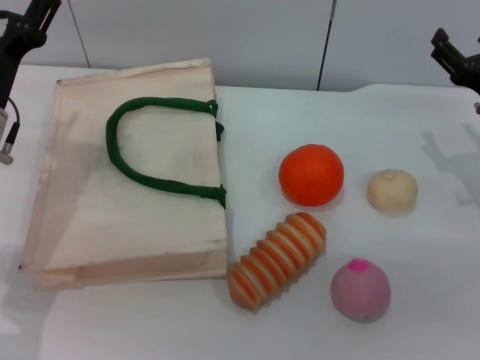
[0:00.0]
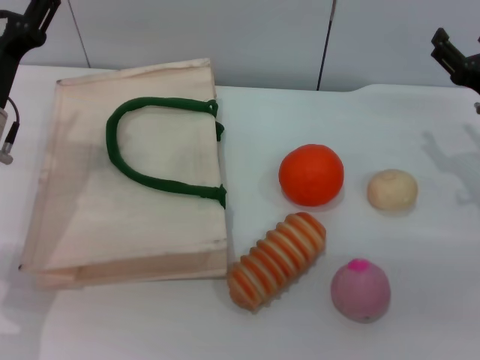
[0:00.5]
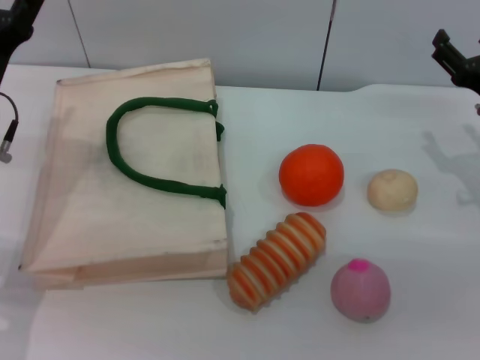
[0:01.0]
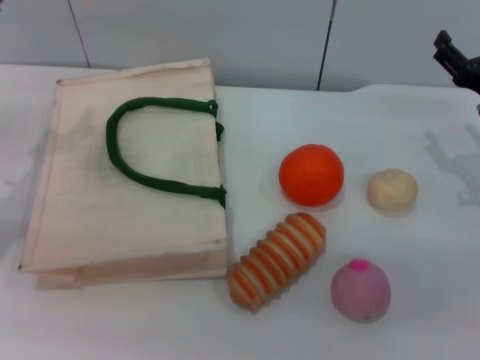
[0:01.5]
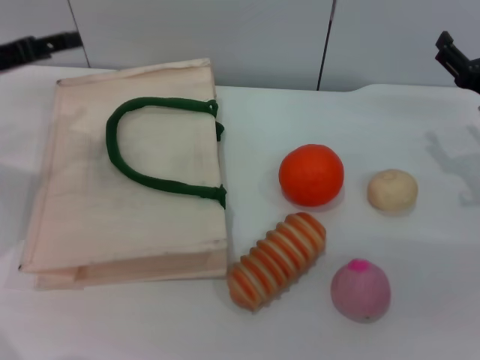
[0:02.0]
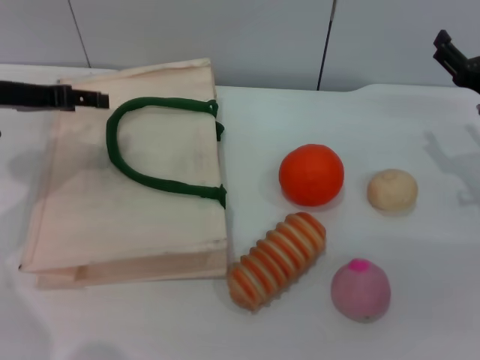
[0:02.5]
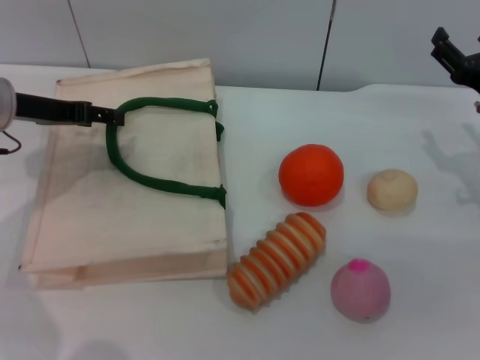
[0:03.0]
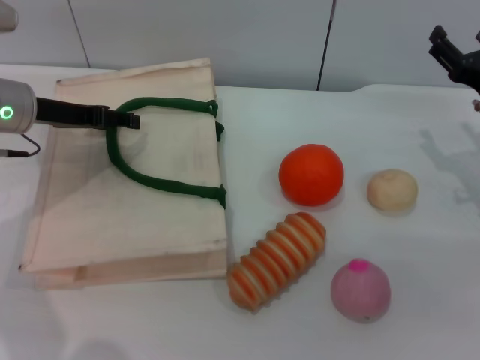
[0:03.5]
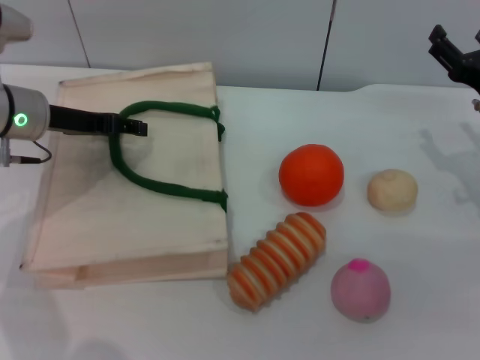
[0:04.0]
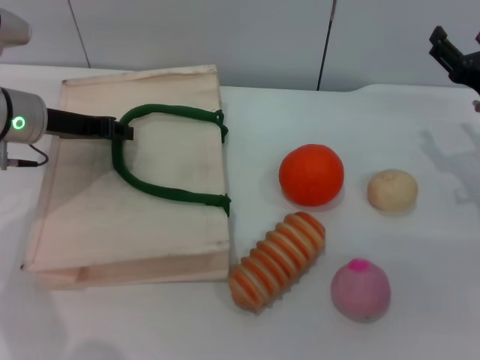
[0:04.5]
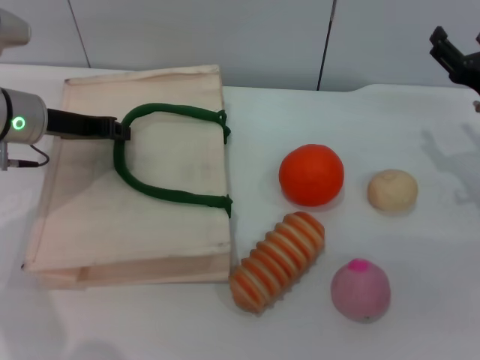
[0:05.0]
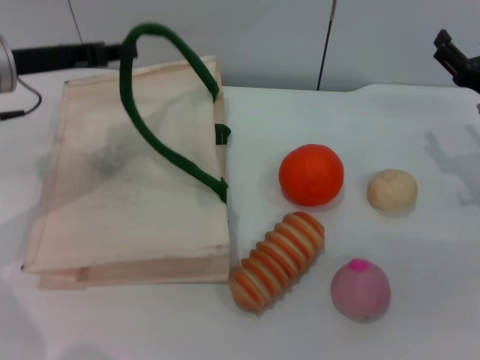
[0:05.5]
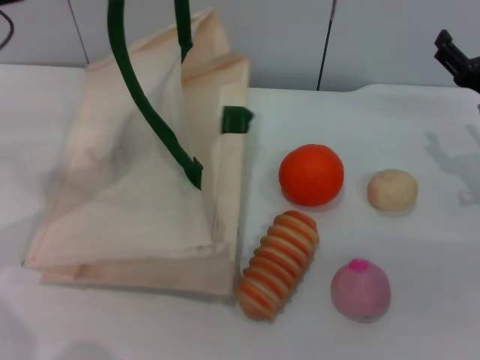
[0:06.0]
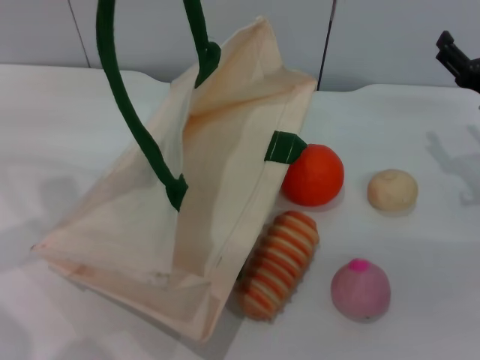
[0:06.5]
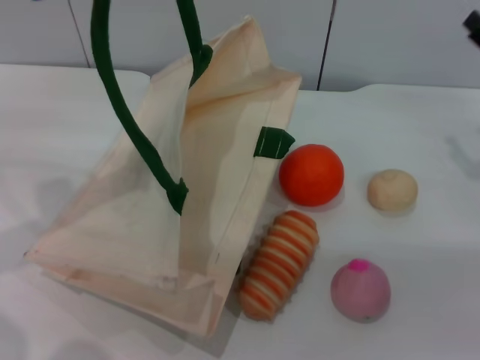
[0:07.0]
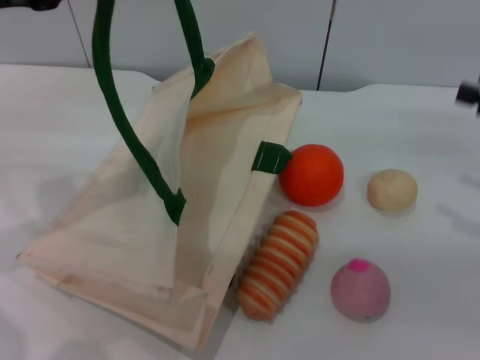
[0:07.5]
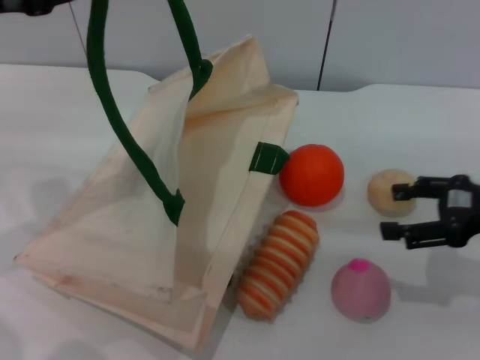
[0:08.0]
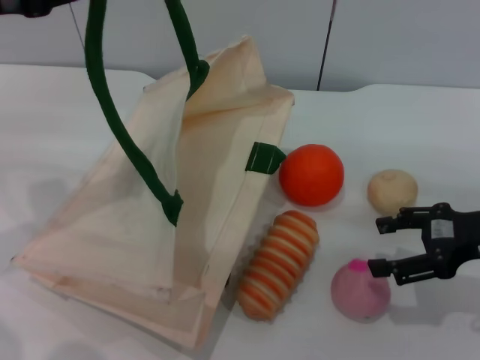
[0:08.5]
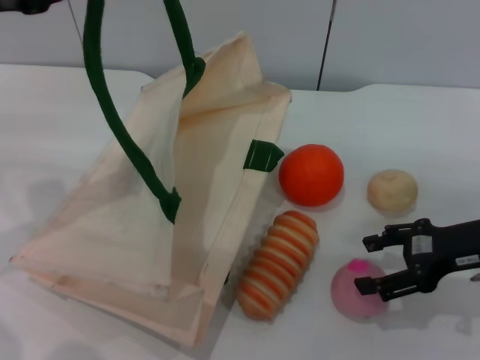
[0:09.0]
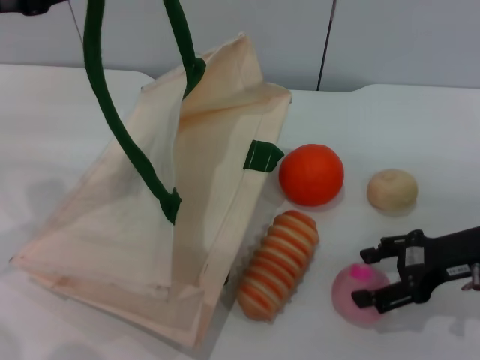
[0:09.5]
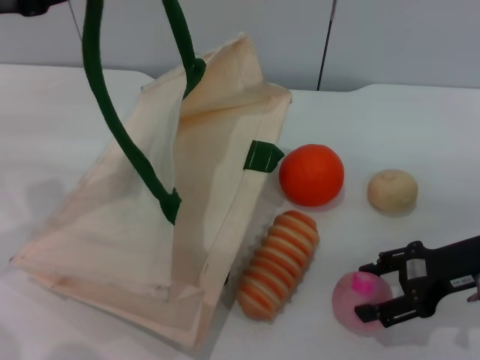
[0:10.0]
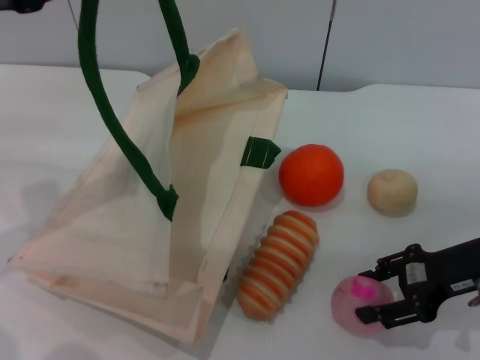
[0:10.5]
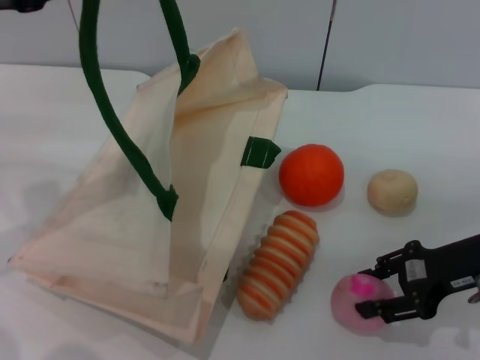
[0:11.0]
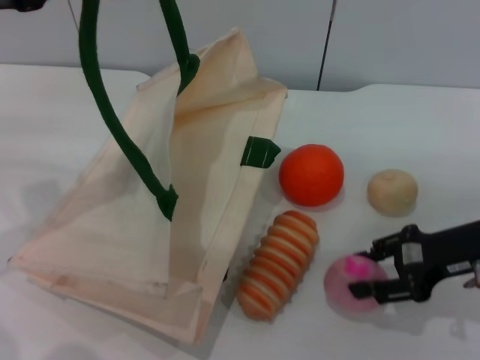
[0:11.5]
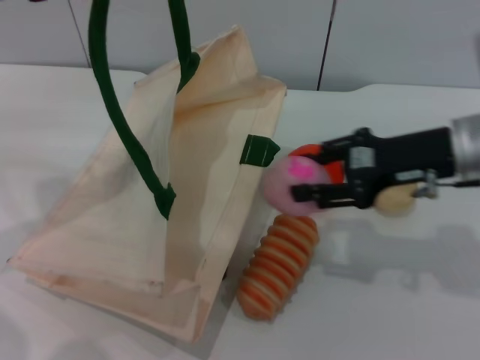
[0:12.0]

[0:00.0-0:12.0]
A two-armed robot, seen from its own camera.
Task of the whole recording: pick up the peach from the table and place it in the white handbag.
Step, 0:00.0 to 0:06.0: Lift the woven bag with the left gripper to open it.
Step, 0:07.0 to 0:11.5: Pick up the peach with the right gripper.
0:00.0 to 0:02.0: The left gripper shifts some 10 cm to the left and upward.
0:02.0 to 0:04.0: The left gripper moves to the right, about 5 cm.
0:04.0 to 0:06.0: The left gripper shifts some 10 cm upward, and closes up.
0:06.0 to 0:08.0: The right gripper moves backward, some 5 cm, and travels to the right and back again, approximately 10 cm each way.
0:08.0 to 0:10.0: The right gripper changes place by about 5 cm.
0:10.0 to 0:12.0: The right gripper heads upward, to the left and forward, covering some 10 cm, and closes up.

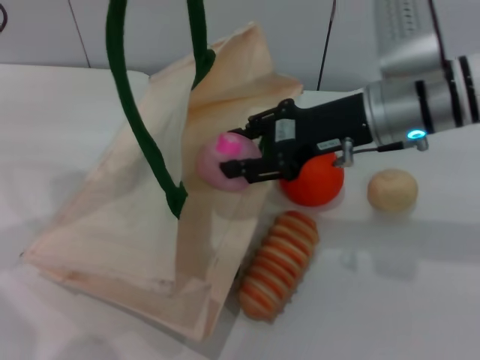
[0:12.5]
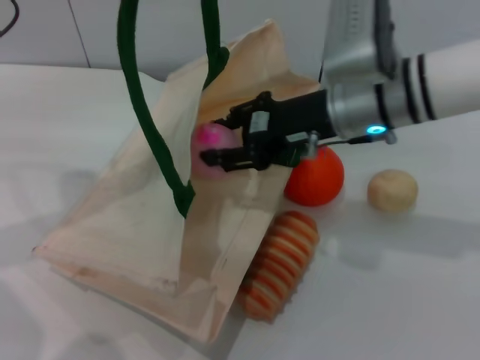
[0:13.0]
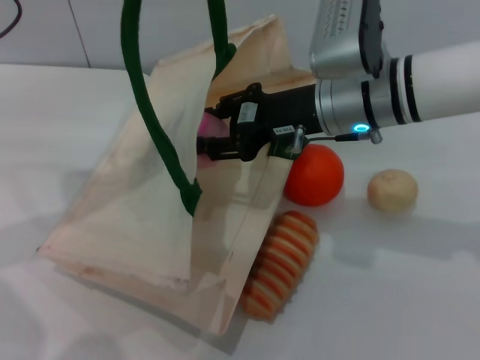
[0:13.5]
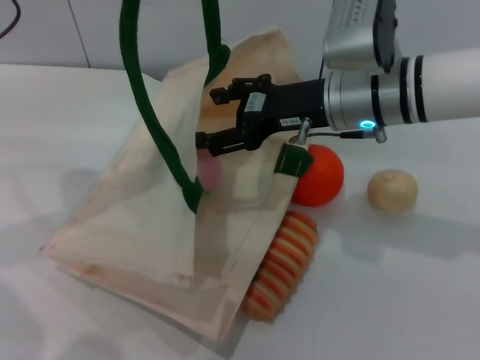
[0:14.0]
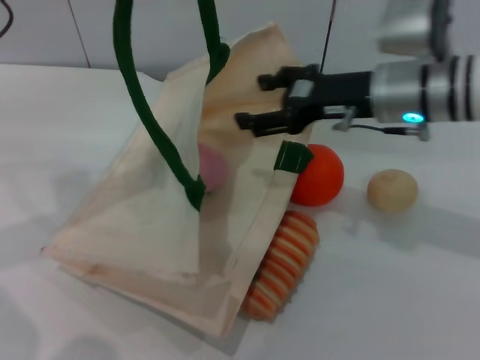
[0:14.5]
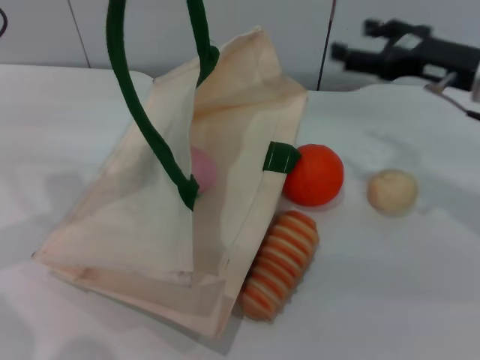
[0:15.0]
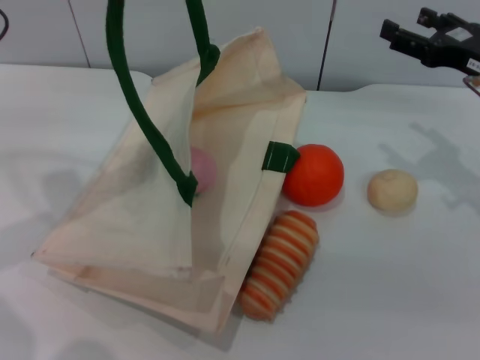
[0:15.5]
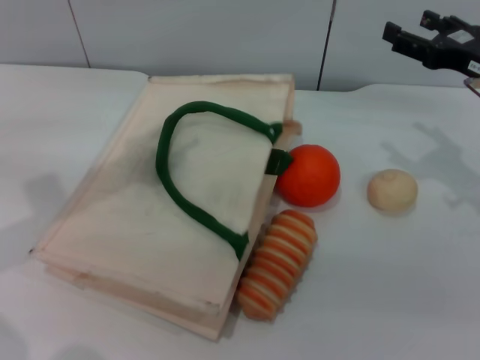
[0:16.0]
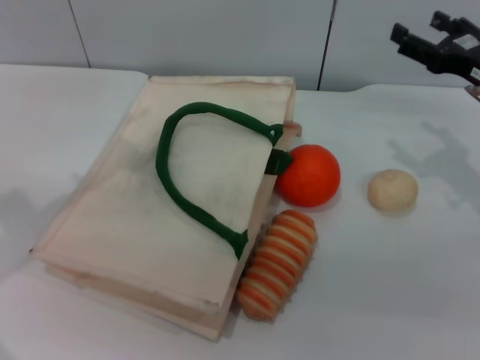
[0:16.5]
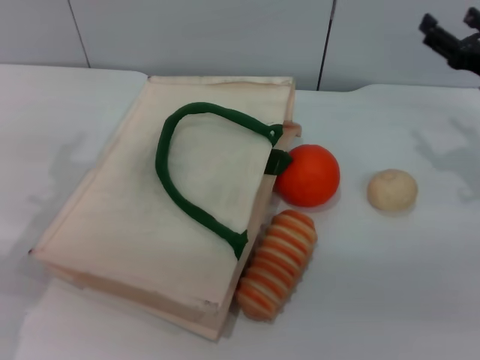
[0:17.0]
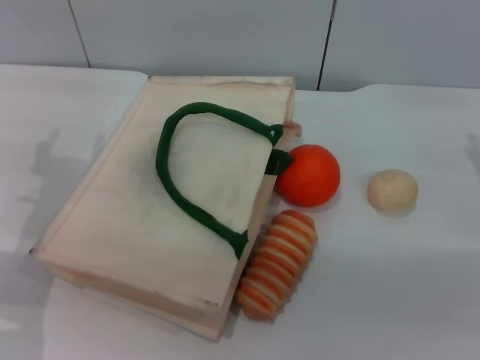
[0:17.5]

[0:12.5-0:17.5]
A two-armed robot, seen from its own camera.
Task of the whole recording: pick up the peach from the table and place it in the white handbag.
Step, 0:12.5 to 0:14.5: Place the peach into the woven bag with the right gripper.
Step, 0:15.5 to 0:16.0: Lower the woven bag with the left gripper to close it.
0:12.5 to 0:15.0: The right gripper heads to the right, covering some 10 cm, and opens.
0:15.0 to 0:17.5: The left gripper heads downward, covering about 15 cm, and opens its fingers, while the right gripper travels downward and to the right by some 10 cm.

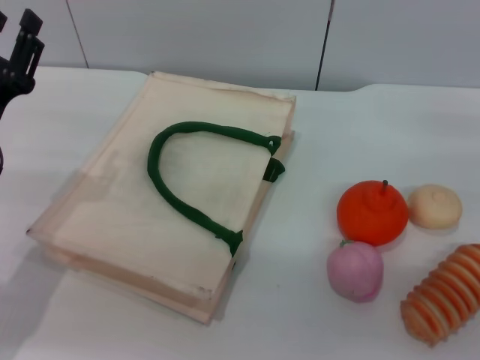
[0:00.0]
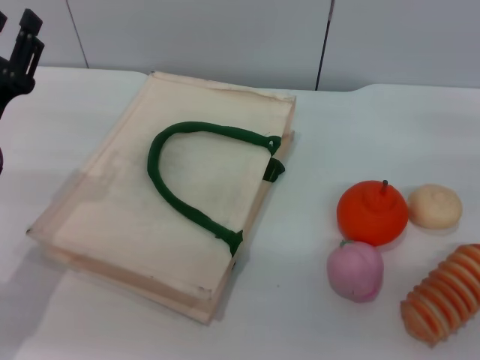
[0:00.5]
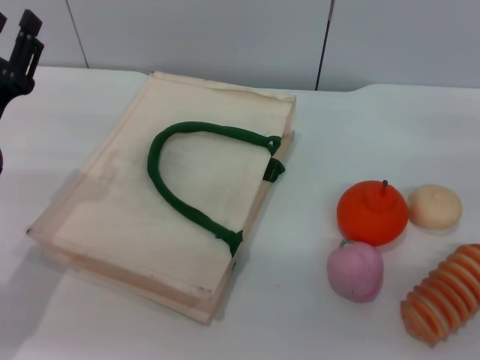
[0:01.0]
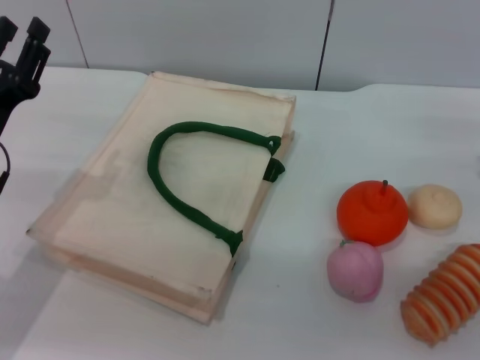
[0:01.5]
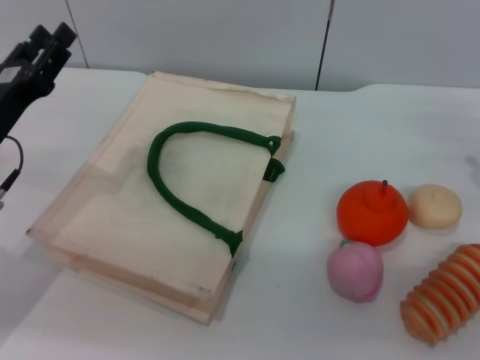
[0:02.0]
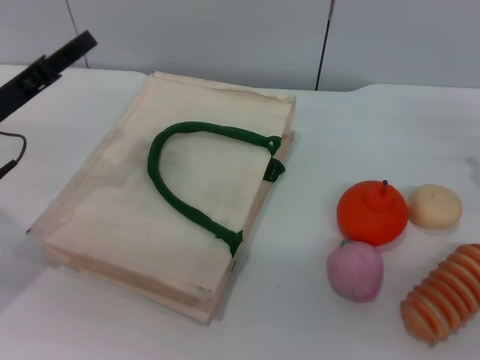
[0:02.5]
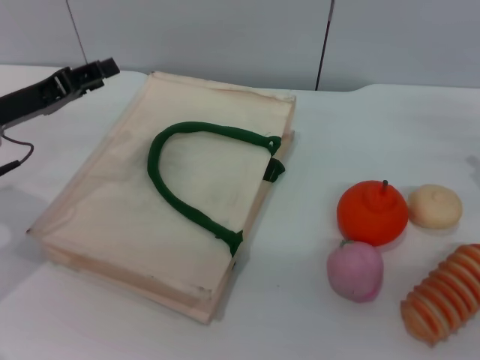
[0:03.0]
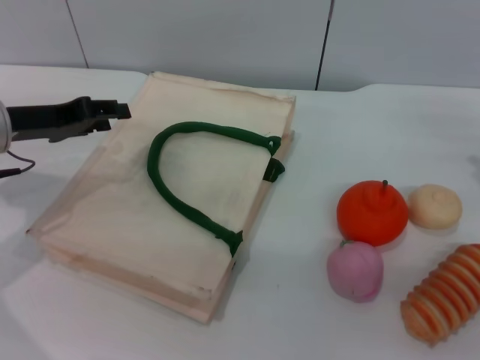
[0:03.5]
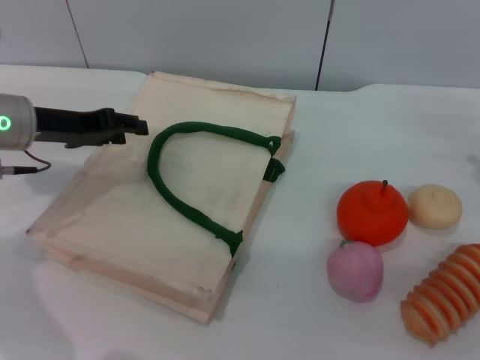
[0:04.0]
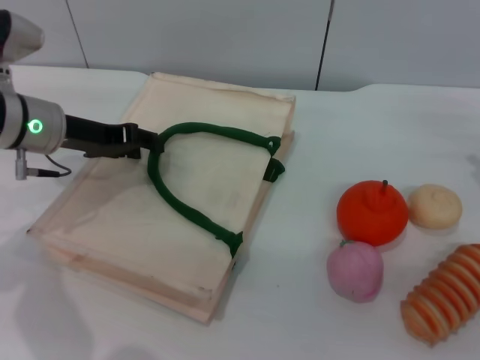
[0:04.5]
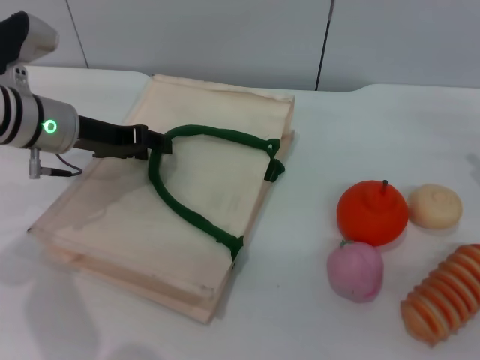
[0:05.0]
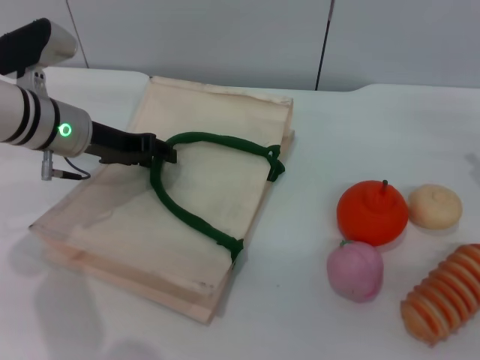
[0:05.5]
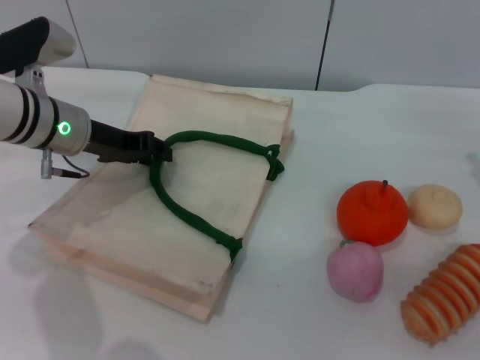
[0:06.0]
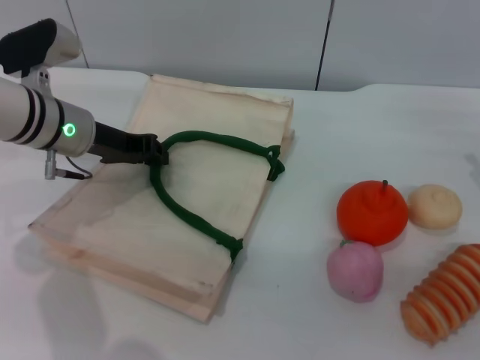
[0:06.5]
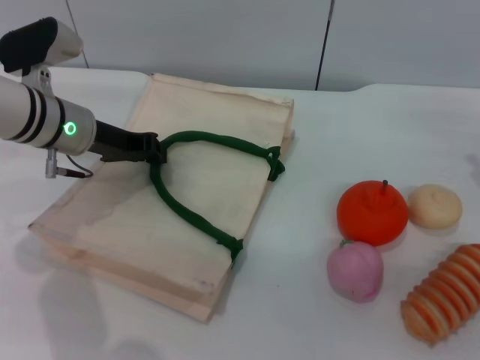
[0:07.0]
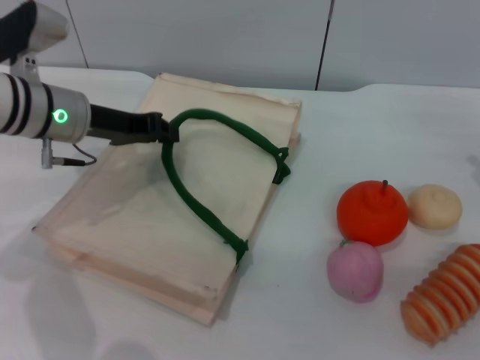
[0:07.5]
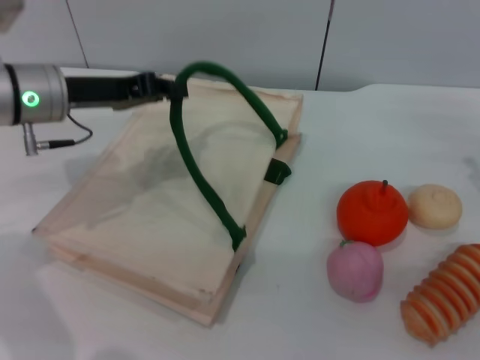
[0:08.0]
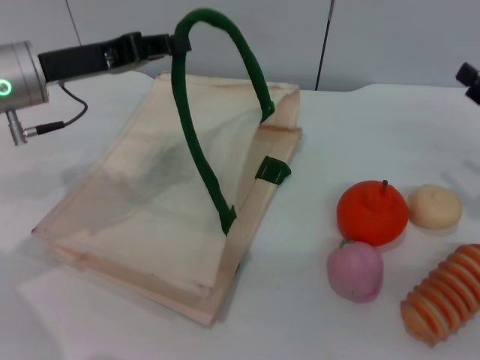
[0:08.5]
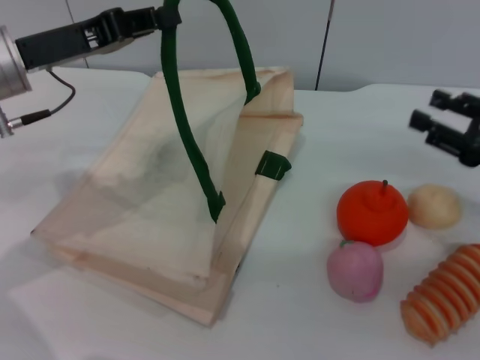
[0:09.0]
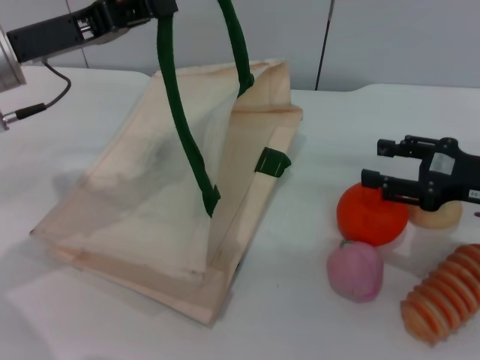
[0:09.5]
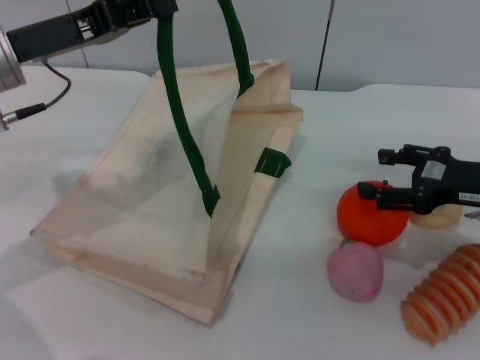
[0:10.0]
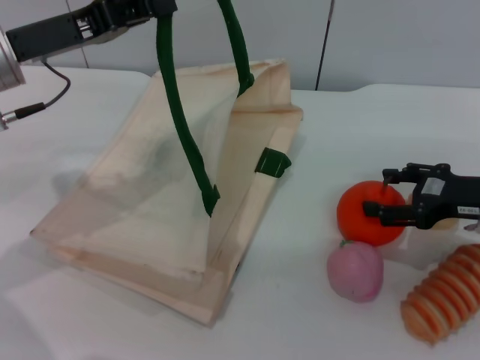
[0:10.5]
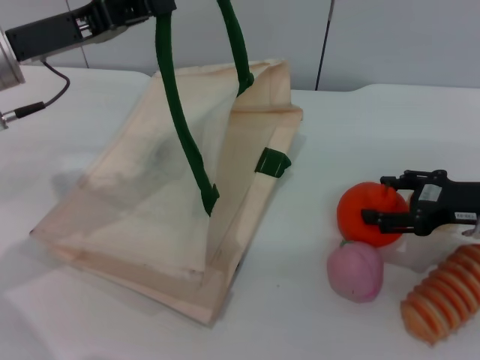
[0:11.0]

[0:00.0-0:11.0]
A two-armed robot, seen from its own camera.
Task of the whole recording: pick up the orange from the table and place it in the white handbag.
Step, 0:00.0 to 0:08.0: Lift the woven bag with the left gripper to open it.
0:02.0 to 0:03.5: The left gripper is displaced forward by approximately 5 cm.
0:03.5 to 0:05.5: The left gripper goes about 5 cm to the right.
0:05.5 to 0:07.5: The left gripper closes.
0:07.5 to 0:09.0: The left gripper goes about 5 cm upward.
